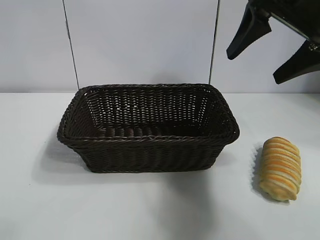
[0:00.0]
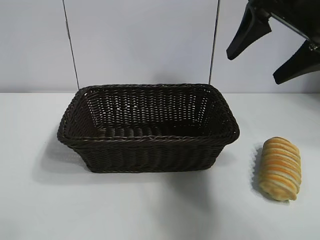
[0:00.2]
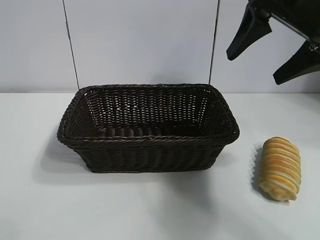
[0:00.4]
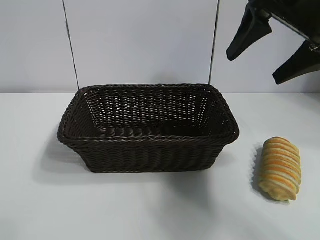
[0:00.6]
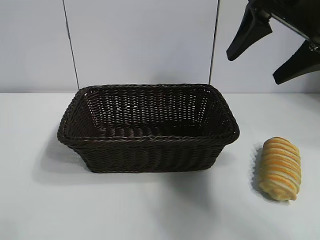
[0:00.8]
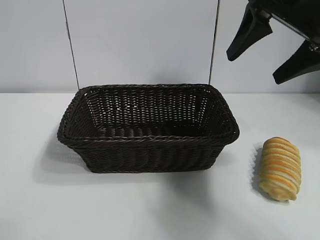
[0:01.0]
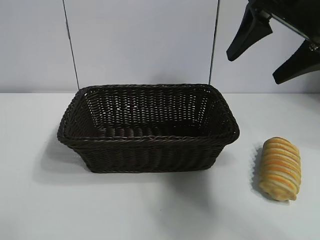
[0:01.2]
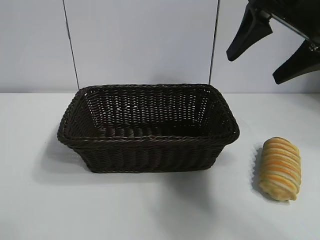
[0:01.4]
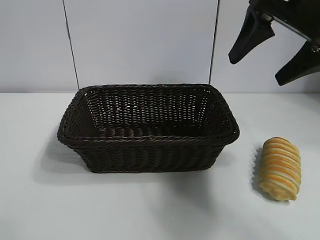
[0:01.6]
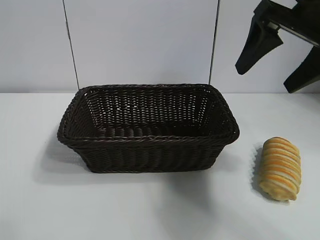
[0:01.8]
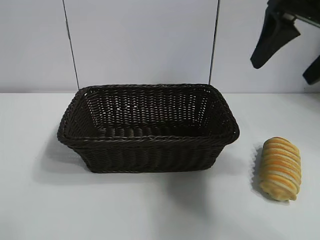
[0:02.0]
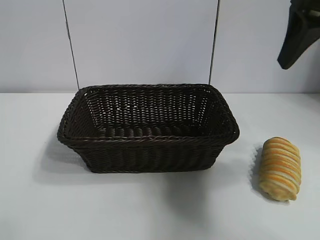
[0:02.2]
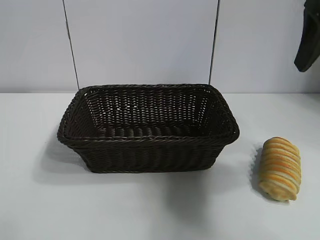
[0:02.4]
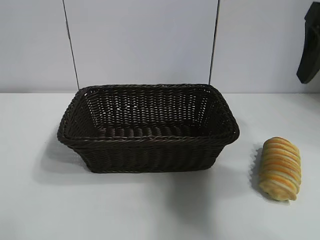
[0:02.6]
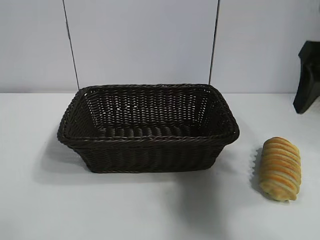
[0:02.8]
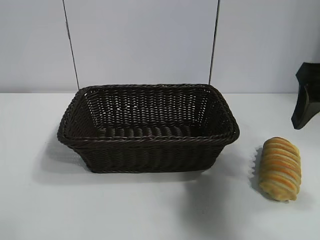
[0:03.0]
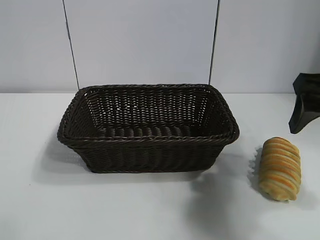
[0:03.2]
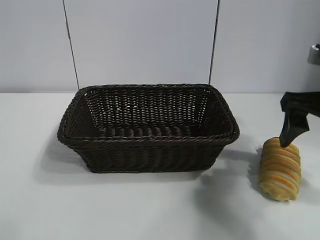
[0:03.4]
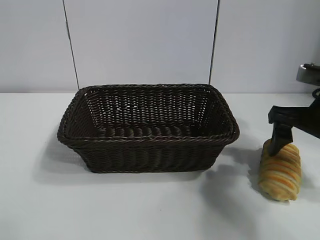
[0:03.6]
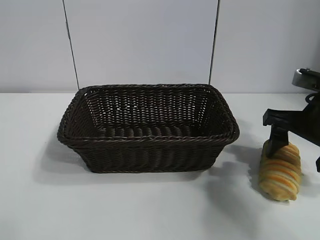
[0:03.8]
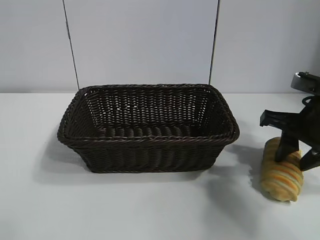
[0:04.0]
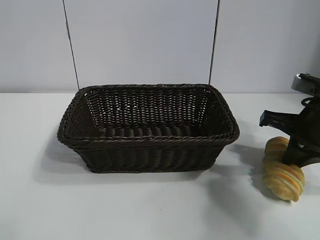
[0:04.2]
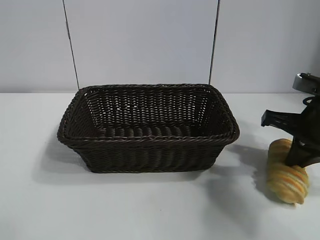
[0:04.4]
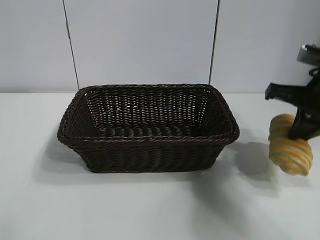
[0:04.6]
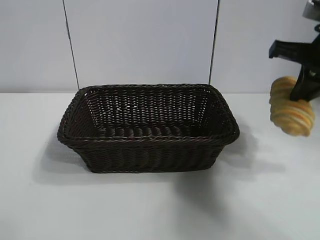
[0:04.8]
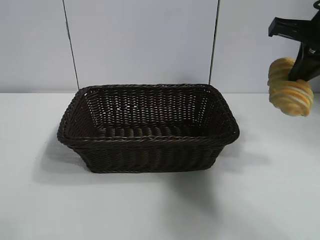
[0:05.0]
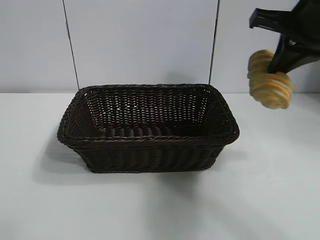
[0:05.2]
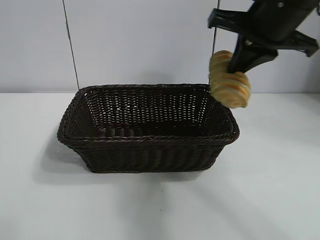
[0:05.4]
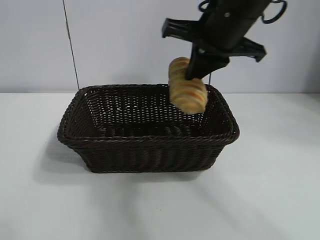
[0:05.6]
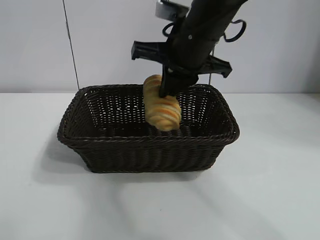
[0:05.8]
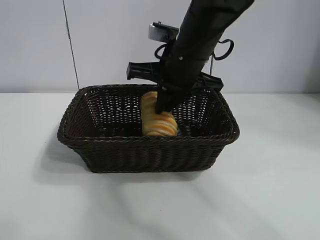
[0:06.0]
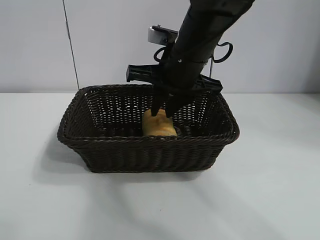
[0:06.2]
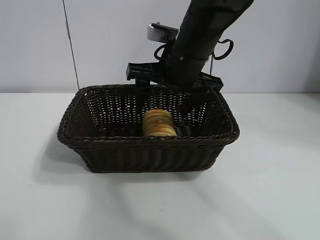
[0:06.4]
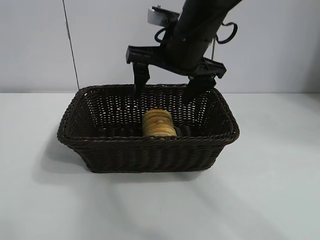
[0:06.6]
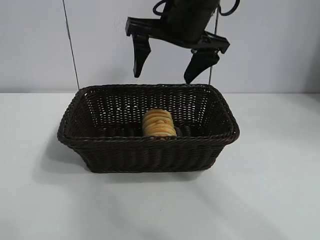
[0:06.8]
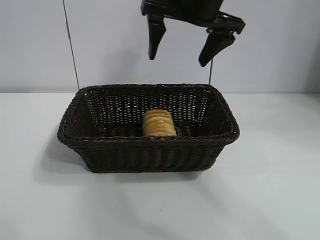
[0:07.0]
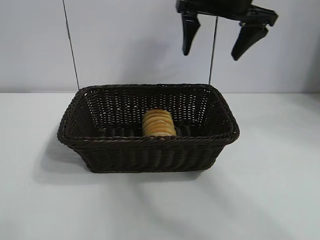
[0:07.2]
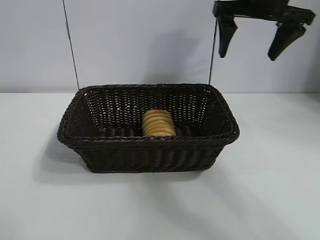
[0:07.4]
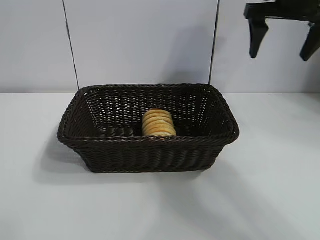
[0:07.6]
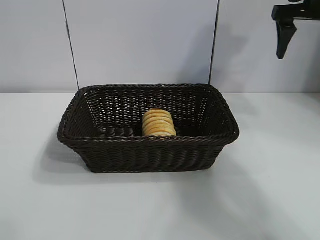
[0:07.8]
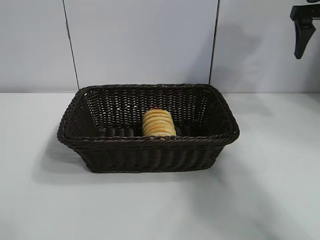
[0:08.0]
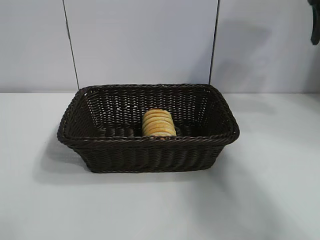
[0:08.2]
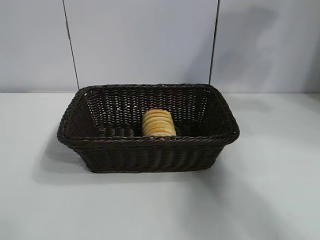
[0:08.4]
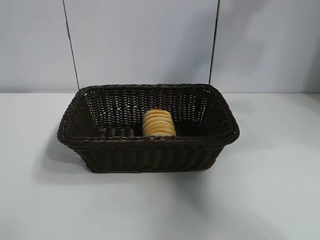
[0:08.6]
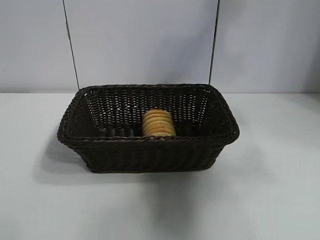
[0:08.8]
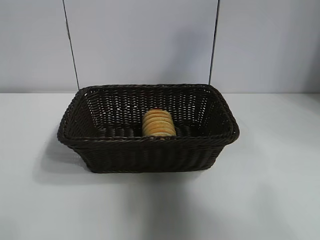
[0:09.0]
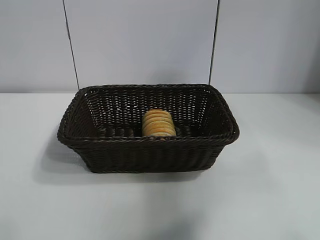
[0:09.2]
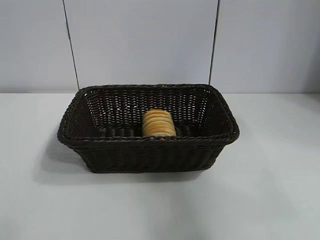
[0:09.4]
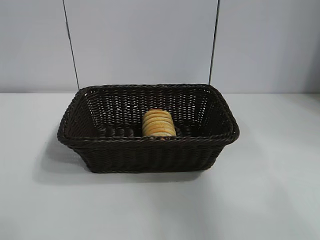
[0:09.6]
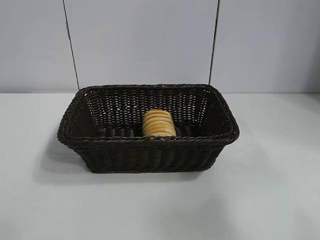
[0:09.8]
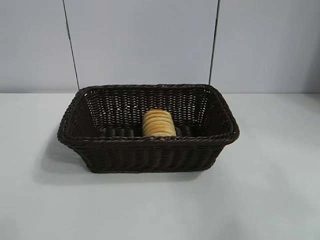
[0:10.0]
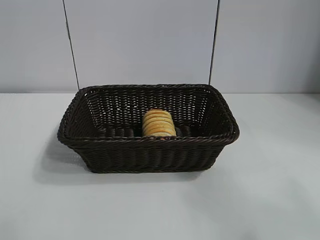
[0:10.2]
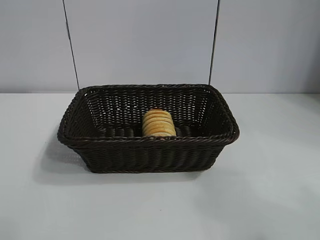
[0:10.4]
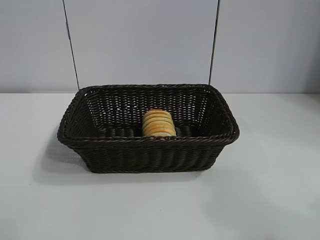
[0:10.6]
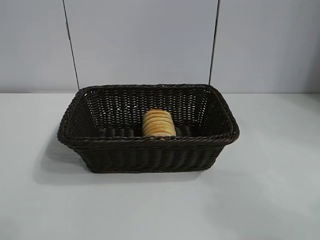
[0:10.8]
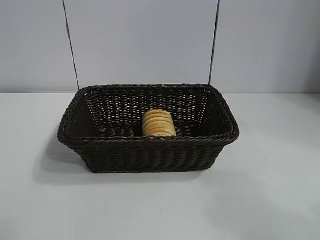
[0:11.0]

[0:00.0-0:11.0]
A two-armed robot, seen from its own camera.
Task of the whole recording: pick up the long bread and put it into the basket.
Step, 0:00.0 to 0:04.0: Grasp the long bread with right gripper.
Step, 0:04.2 to 0:06.2: Place the long bread in the basket with right gripper.
